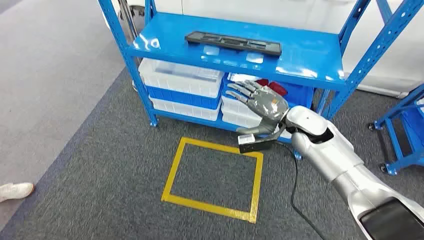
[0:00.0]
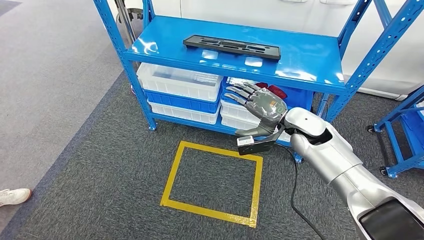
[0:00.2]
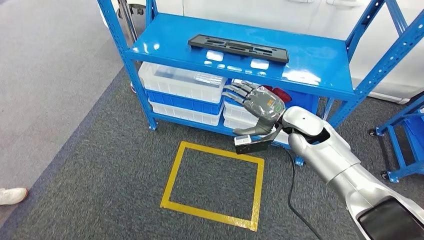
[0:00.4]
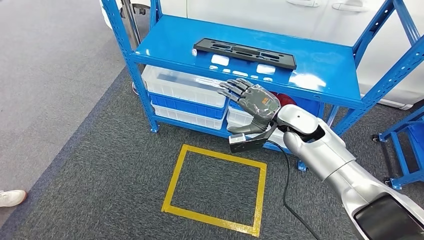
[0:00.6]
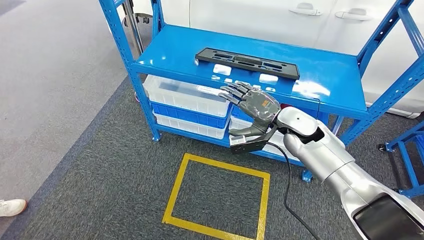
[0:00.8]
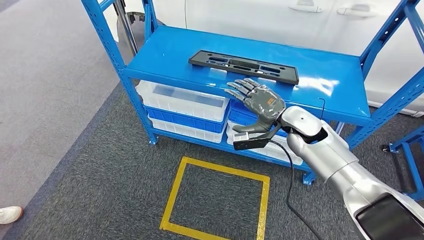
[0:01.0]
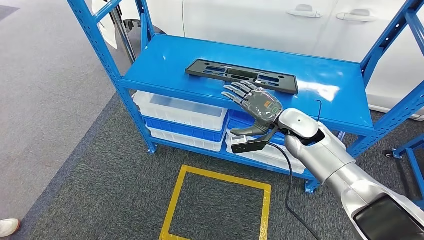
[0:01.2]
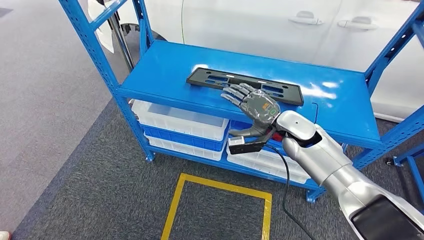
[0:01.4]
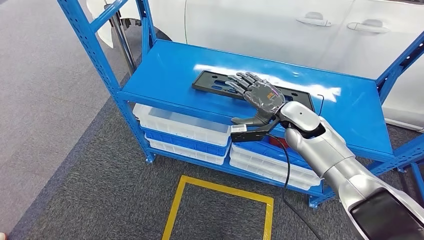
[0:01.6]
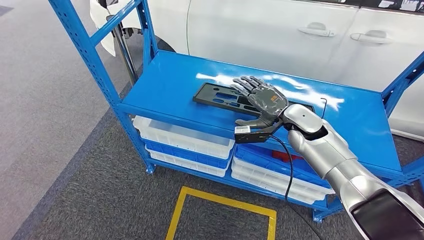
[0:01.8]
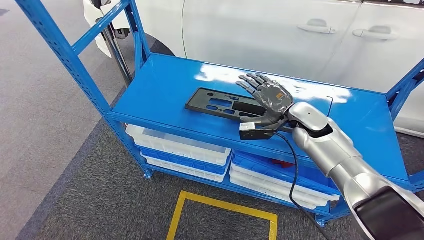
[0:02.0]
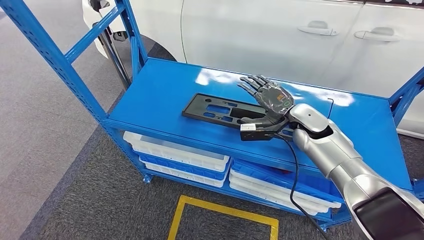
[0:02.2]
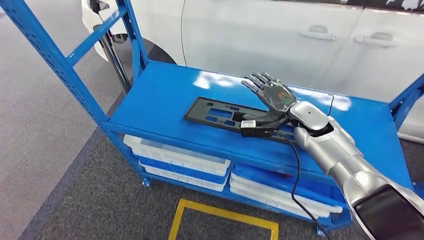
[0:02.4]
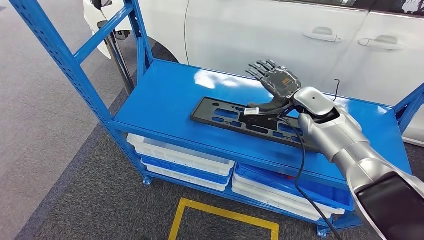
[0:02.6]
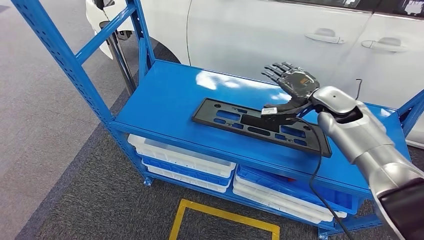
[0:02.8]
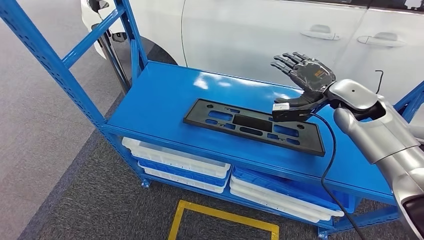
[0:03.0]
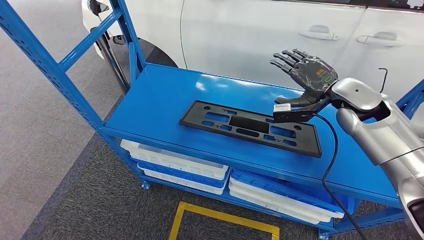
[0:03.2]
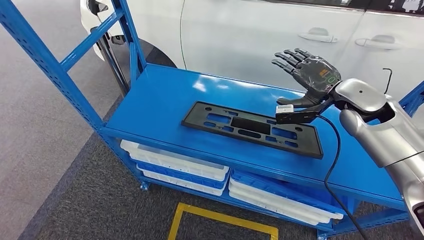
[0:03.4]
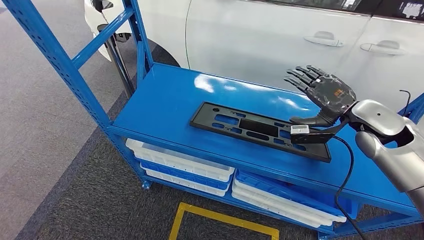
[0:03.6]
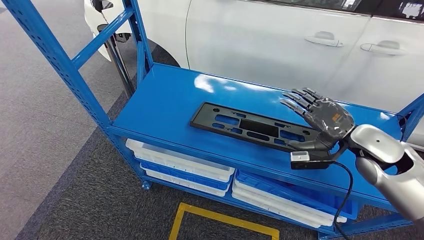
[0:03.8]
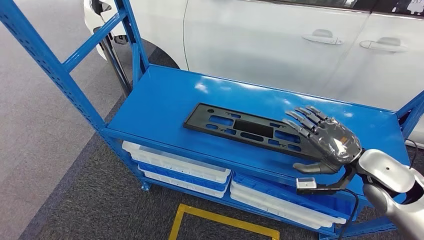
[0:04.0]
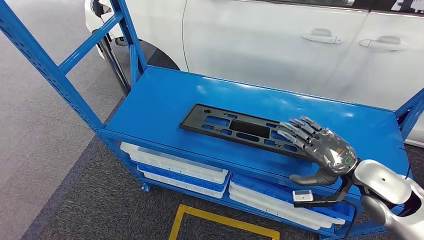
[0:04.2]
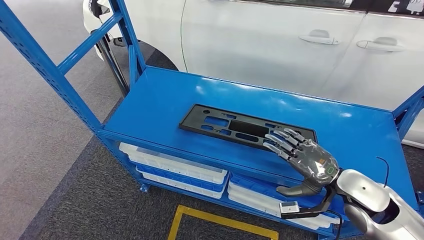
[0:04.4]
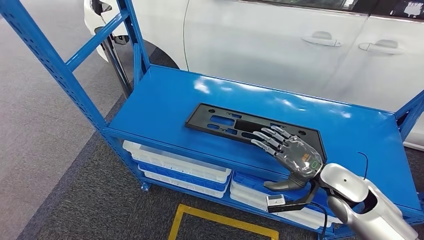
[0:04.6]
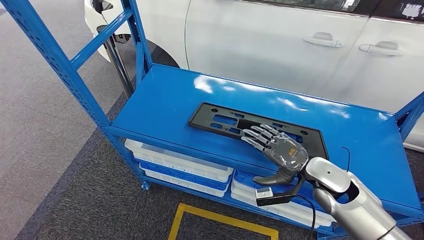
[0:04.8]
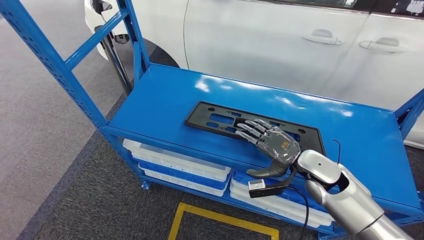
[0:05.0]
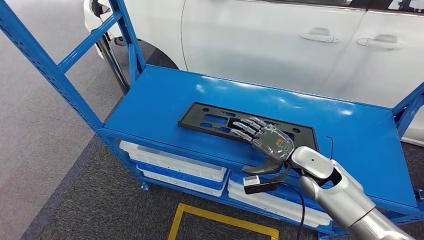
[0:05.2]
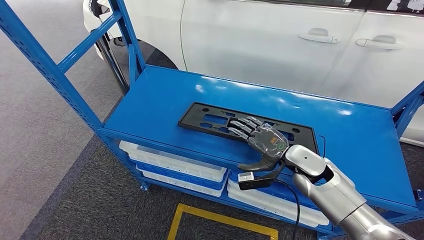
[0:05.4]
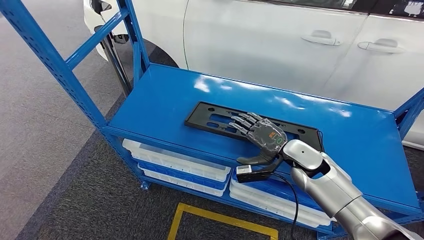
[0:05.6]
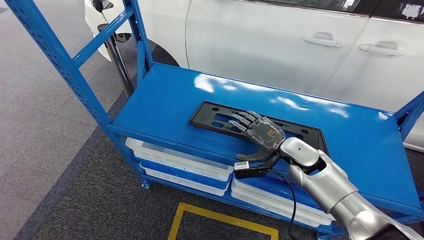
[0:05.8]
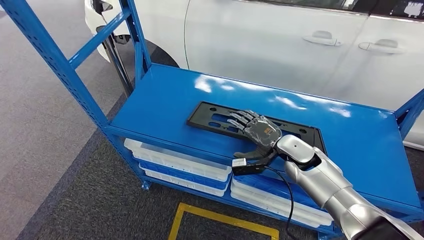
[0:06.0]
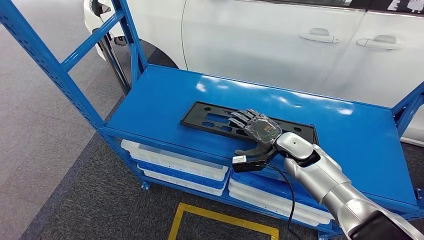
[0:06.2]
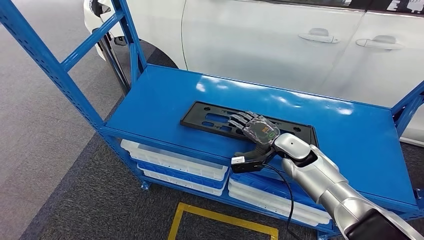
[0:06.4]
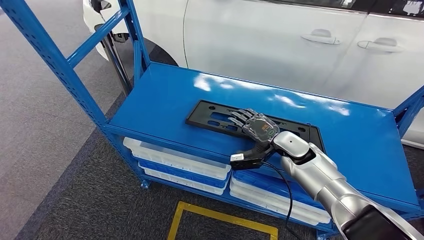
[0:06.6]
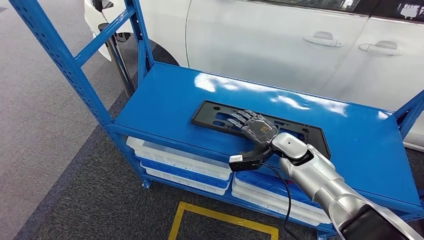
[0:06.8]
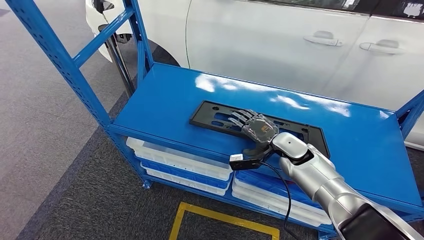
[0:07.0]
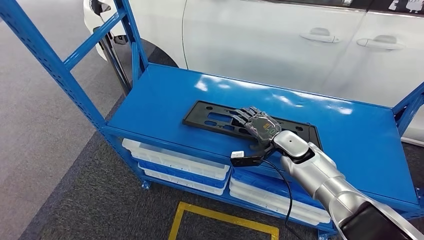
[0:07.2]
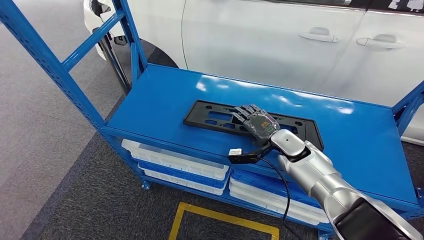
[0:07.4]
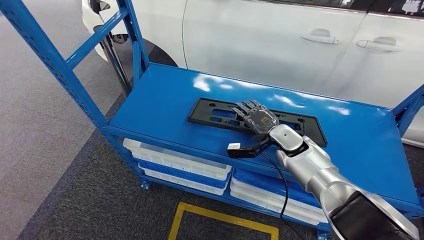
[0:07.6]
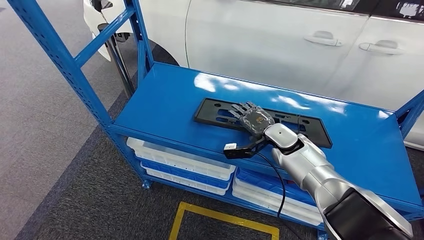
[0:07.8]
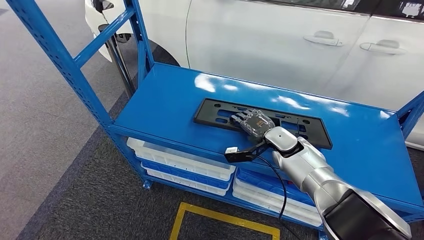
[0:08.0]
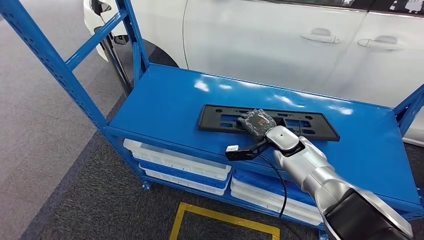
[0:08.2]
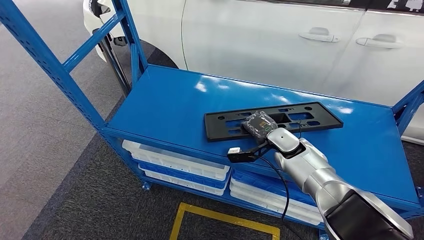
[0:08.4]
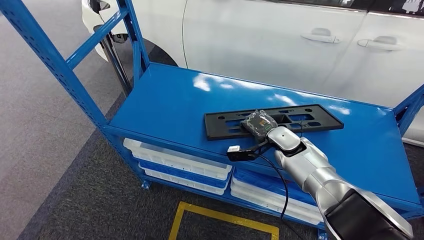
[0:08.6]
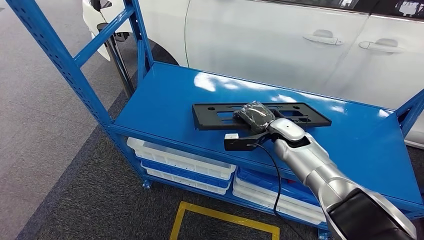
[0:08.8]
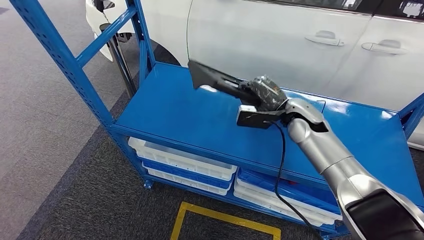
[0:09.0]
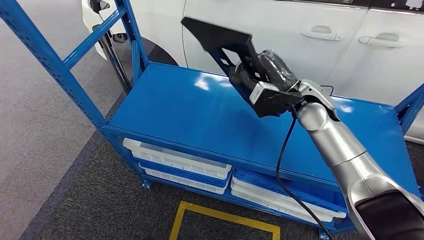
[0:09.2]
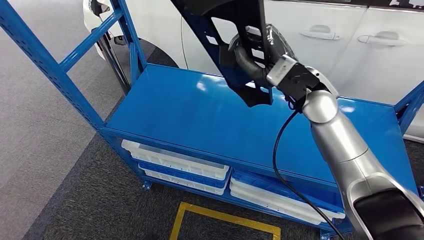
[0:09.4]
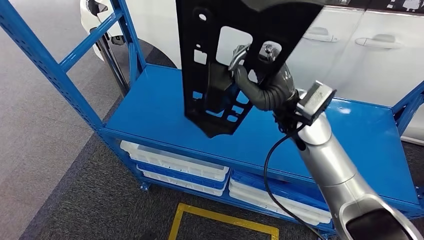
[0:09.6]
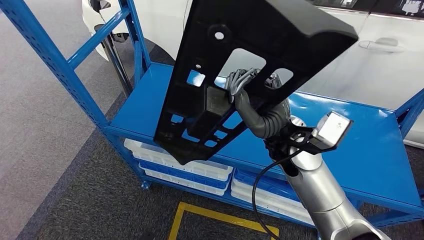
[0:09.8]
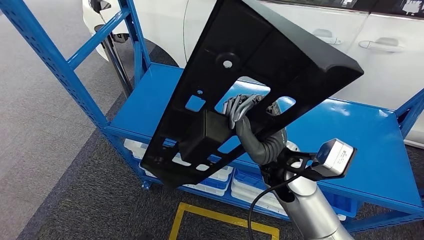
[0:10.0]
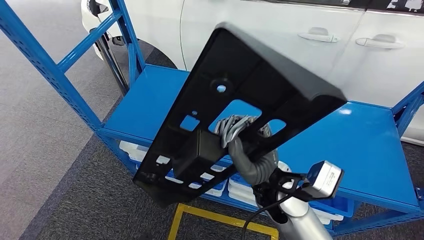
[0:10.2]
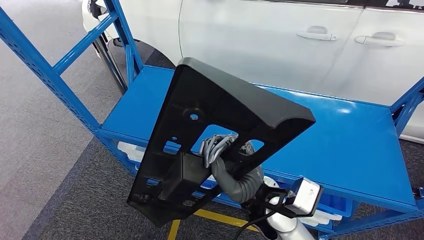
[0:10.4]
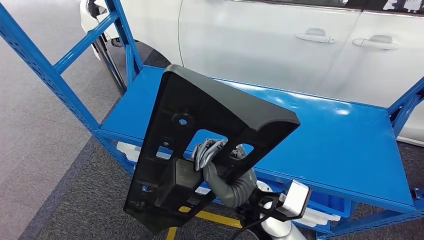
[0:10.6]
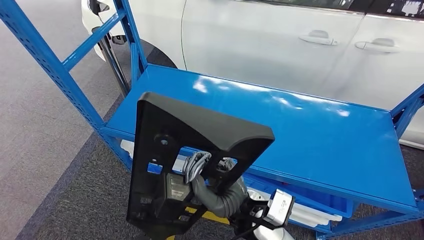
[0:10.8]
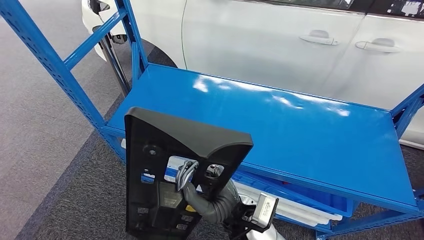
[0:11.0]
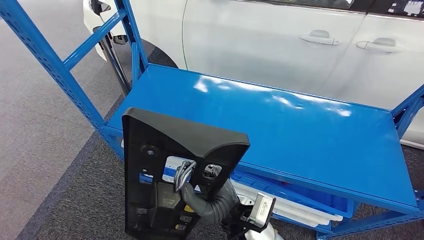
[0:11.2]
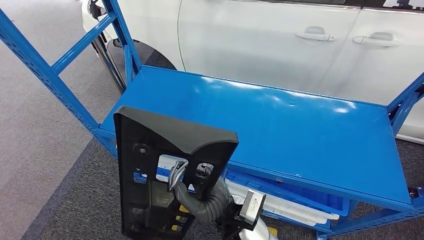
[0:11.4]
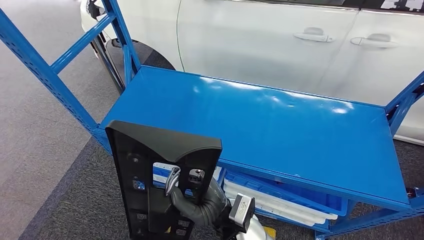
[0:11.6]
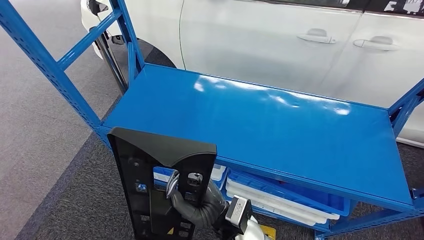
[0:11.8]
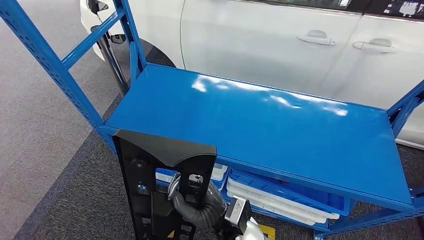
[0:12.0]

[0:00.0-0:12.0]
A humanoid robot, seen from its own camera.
Step, 0:00.0 to 0:09.0: Pick up the large material from the shelf.
0:06.0 to 0:07.6: The hands stay close to where they were, moving slightly.

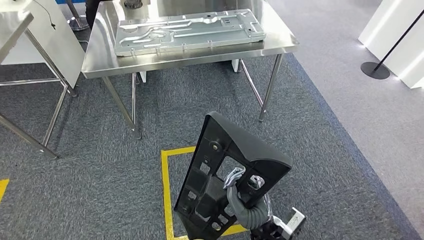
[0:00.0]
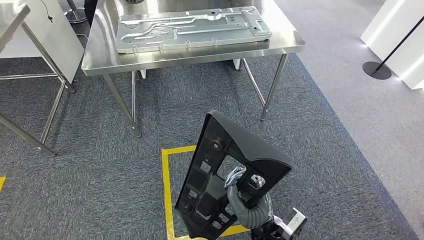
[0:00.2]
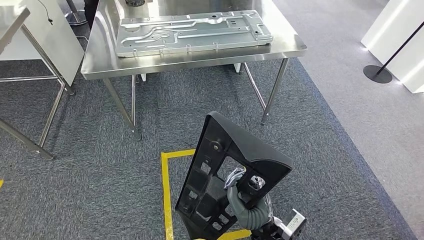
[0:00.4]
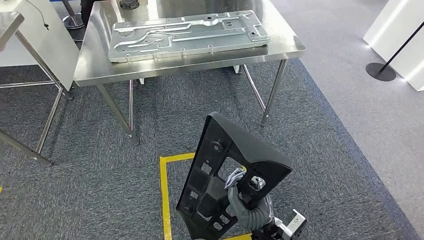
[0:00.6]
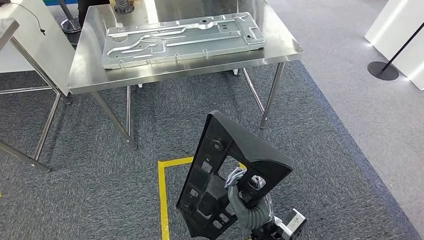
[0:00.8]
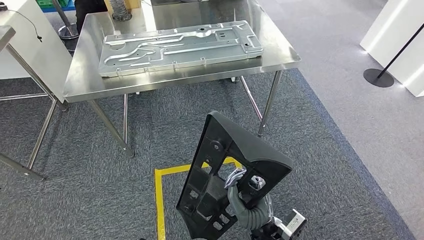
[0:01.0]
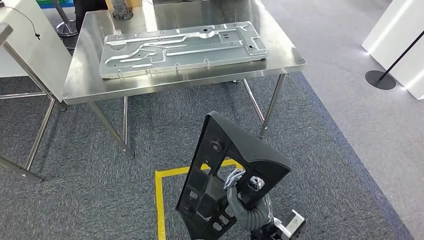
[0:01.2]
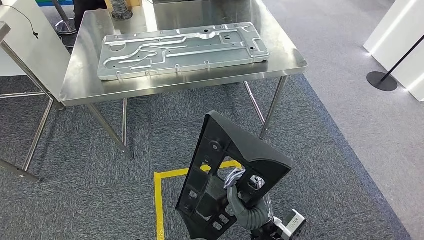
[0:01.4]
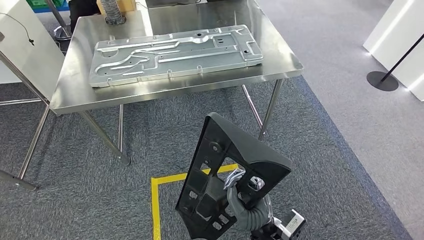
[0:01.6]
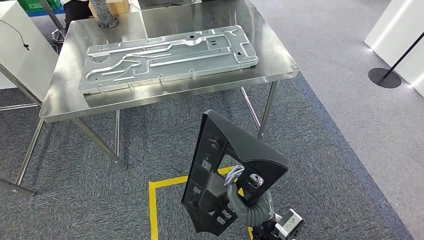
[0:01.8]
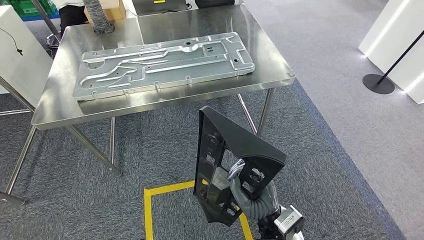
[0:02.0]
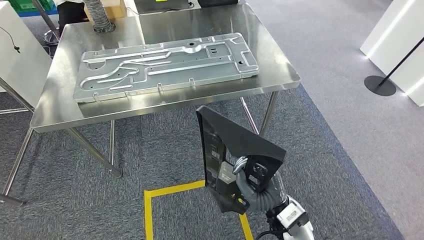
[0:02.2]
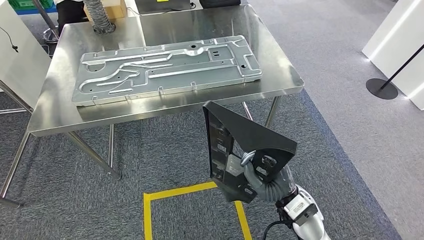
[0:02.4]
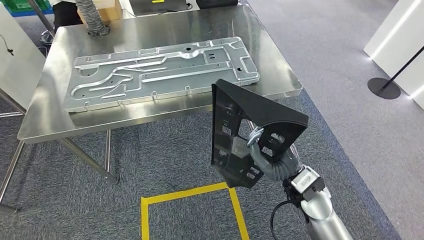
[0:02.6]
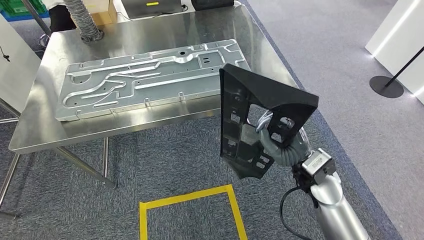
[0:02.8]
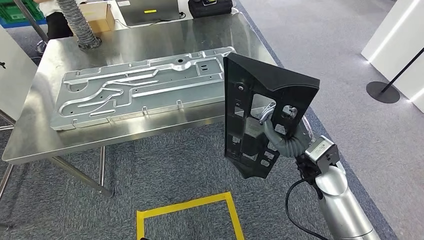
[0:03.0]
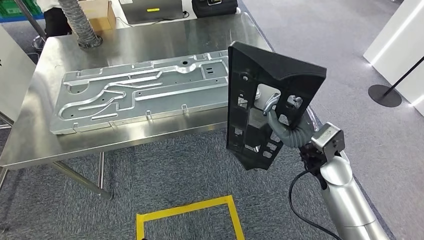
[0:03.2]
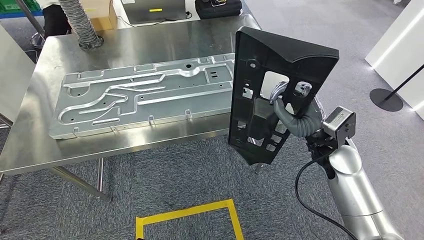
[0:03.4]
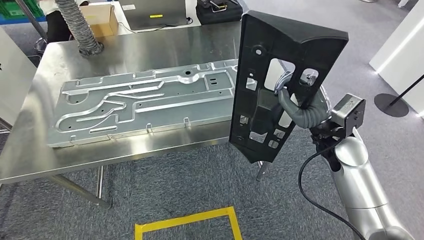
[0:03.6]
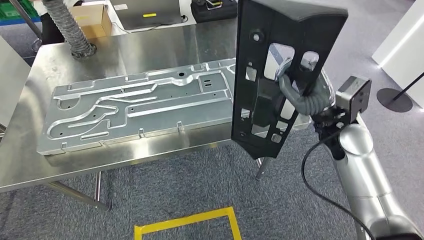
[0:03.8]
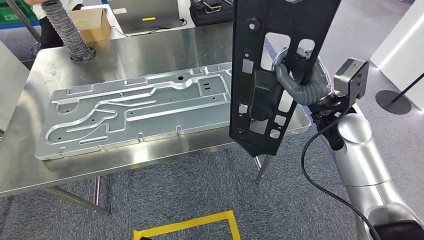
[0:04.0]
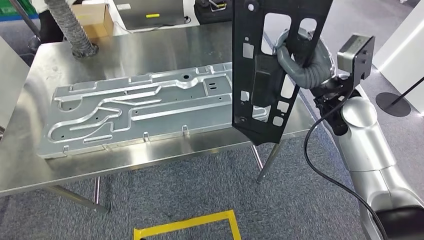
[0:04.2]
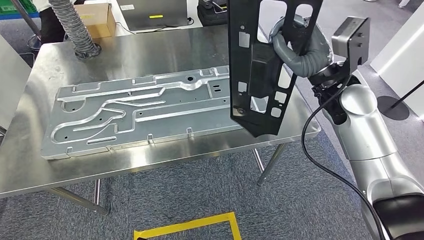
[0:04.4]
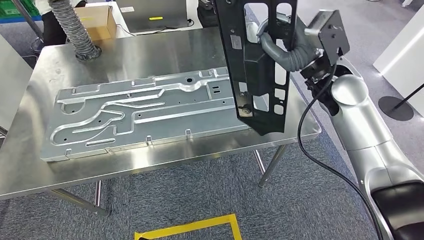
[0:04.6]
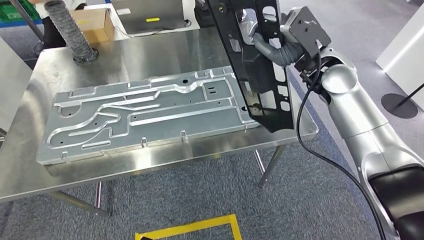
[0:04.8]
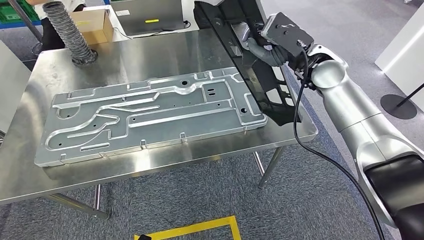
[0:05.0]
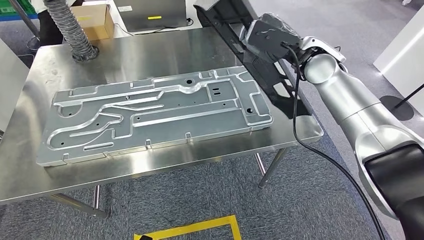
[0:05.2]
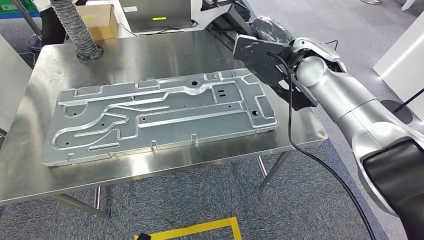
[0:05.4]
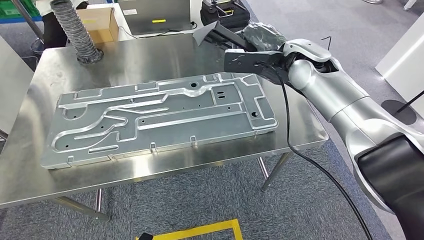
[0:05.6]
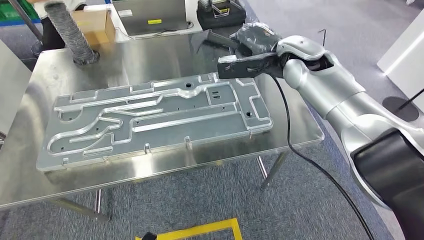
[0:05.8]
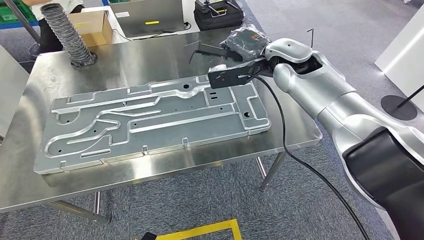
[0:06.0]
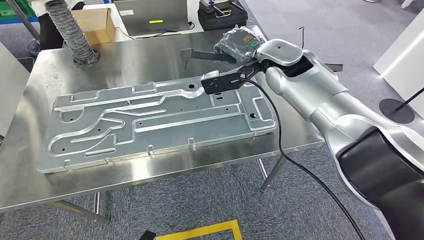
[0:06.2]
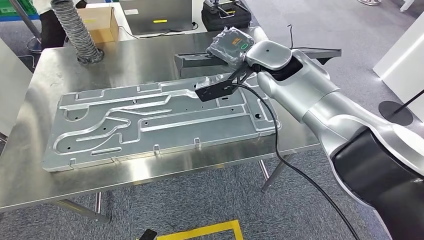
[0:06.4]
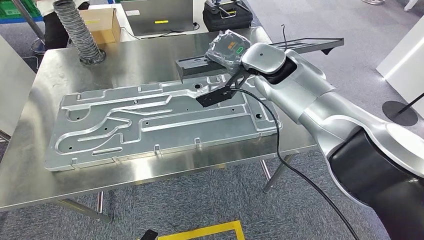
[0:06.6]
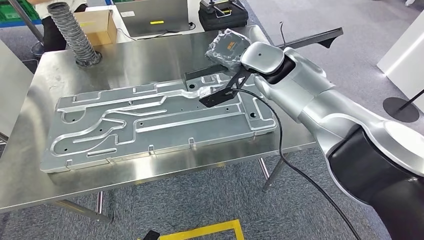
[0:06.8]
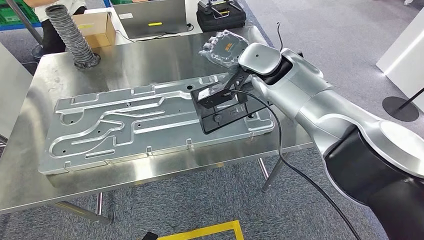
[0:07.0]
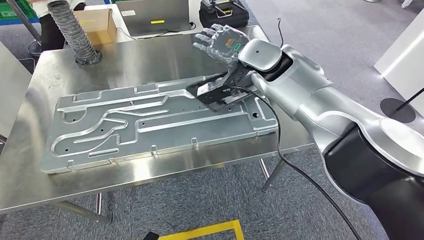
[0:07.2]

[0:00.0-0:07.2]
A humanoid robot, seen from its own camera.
Step, 0:00.0 to 0:05.2: Move the large material to the workbench.
